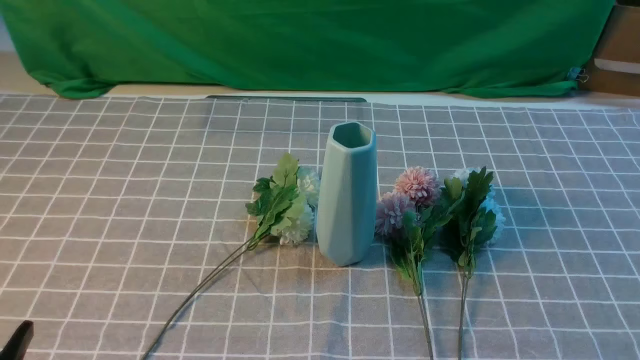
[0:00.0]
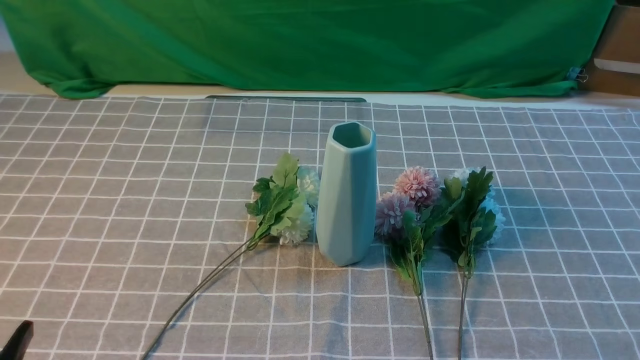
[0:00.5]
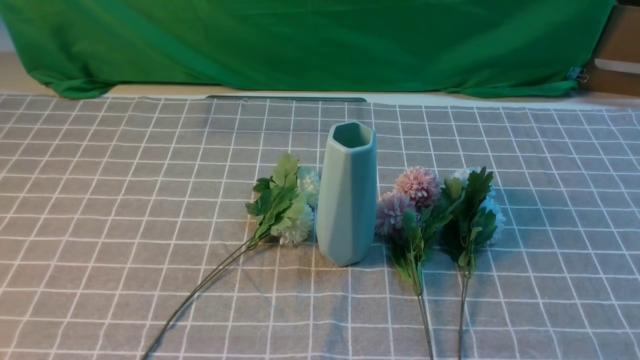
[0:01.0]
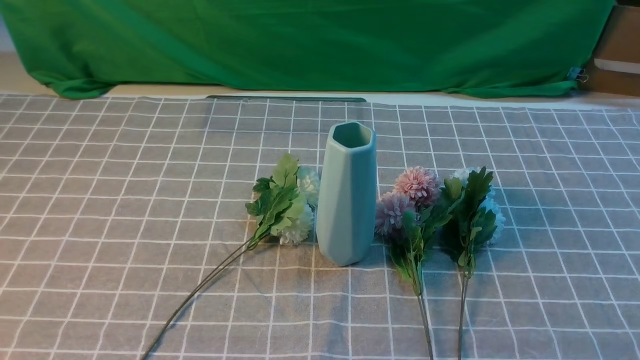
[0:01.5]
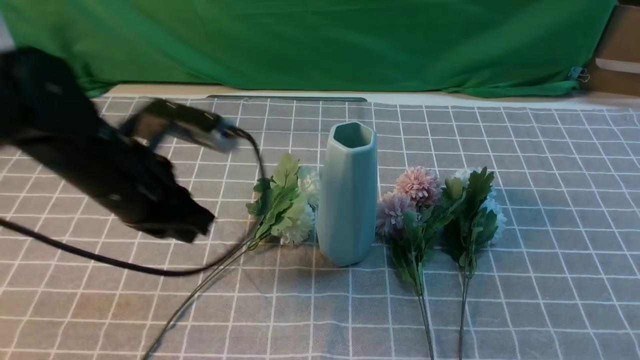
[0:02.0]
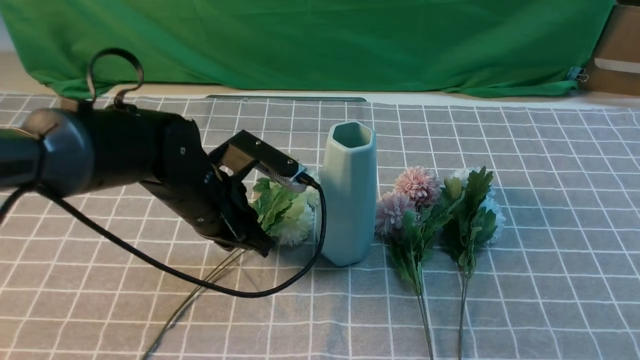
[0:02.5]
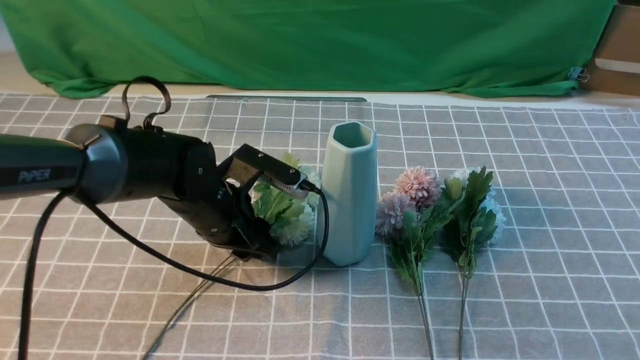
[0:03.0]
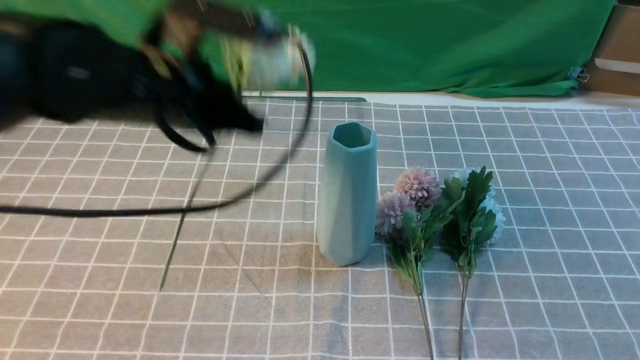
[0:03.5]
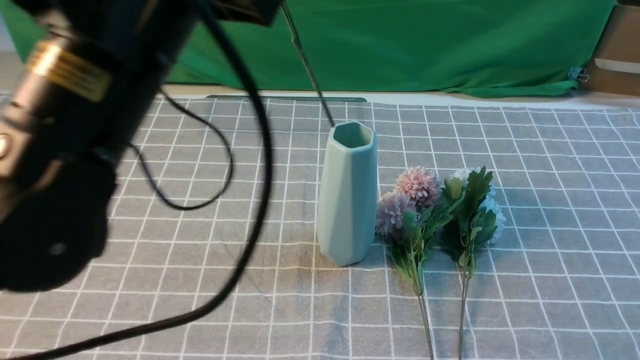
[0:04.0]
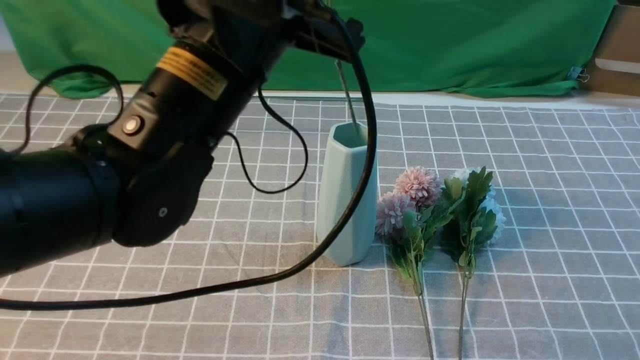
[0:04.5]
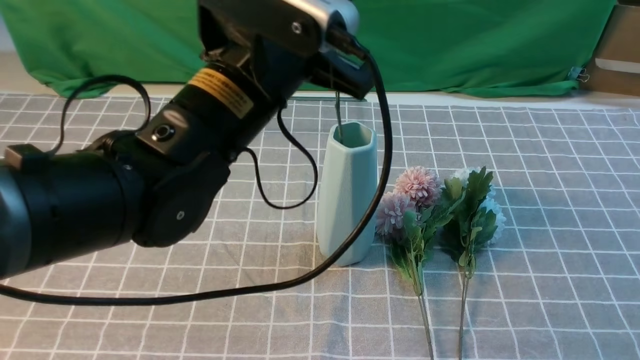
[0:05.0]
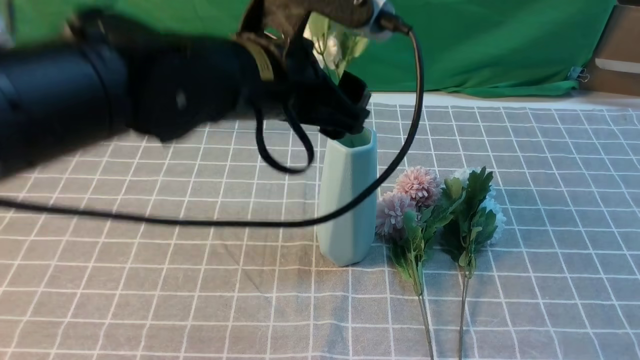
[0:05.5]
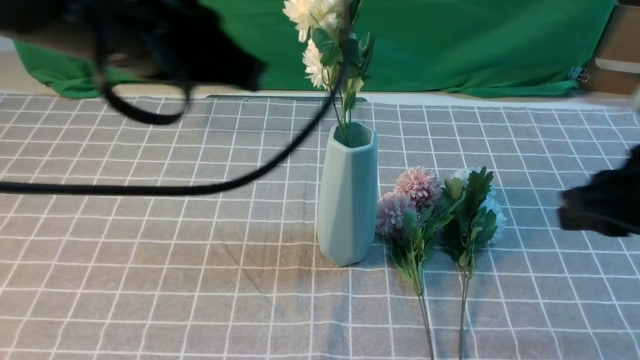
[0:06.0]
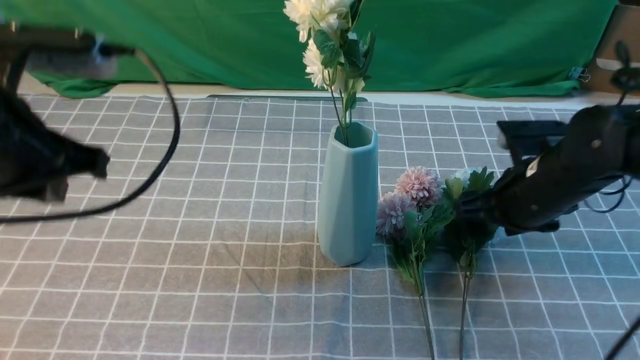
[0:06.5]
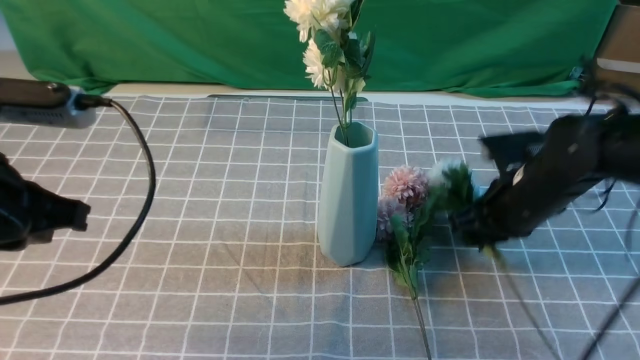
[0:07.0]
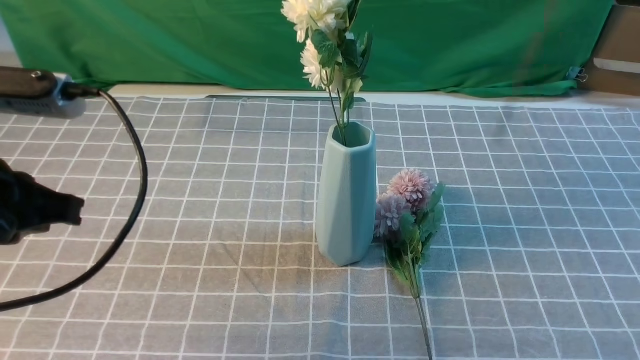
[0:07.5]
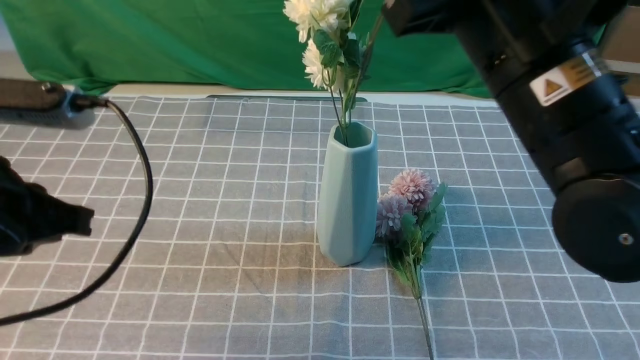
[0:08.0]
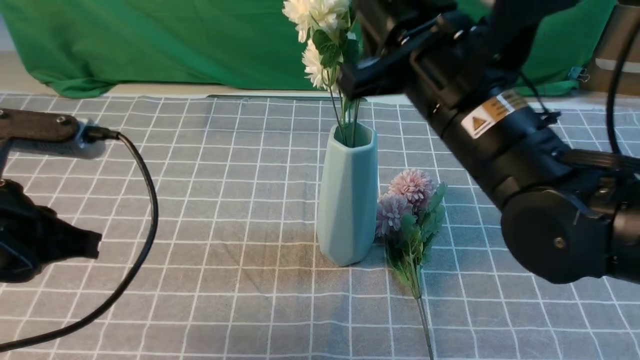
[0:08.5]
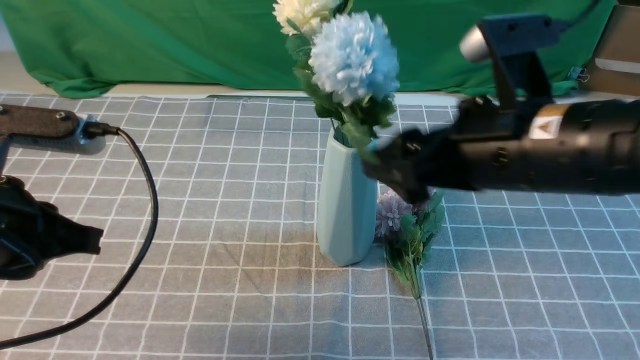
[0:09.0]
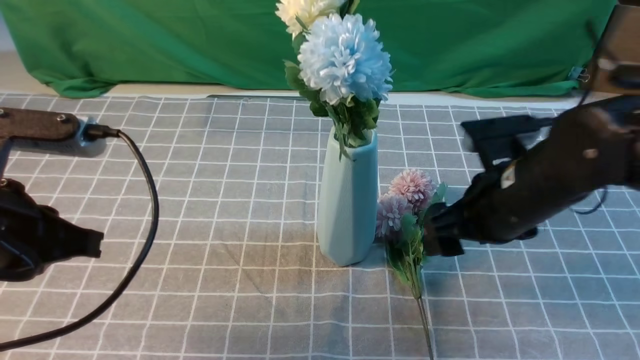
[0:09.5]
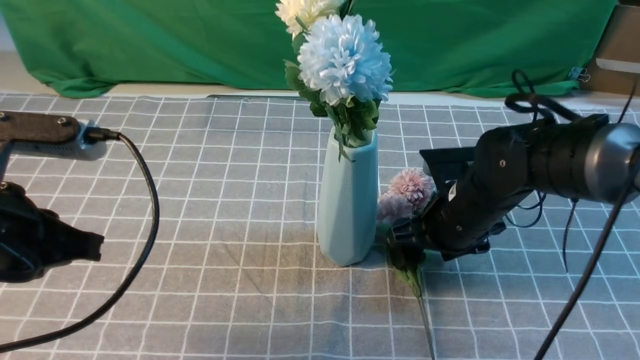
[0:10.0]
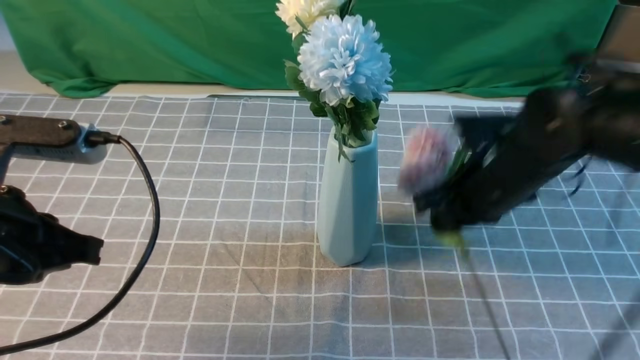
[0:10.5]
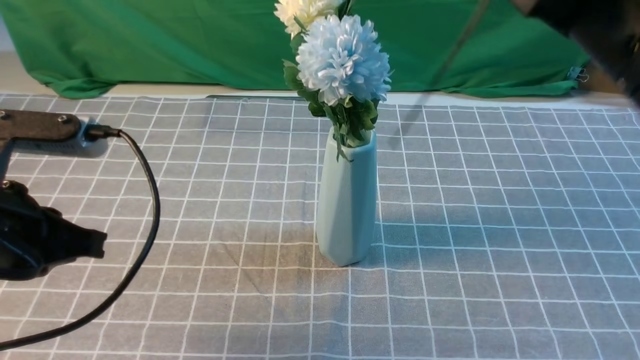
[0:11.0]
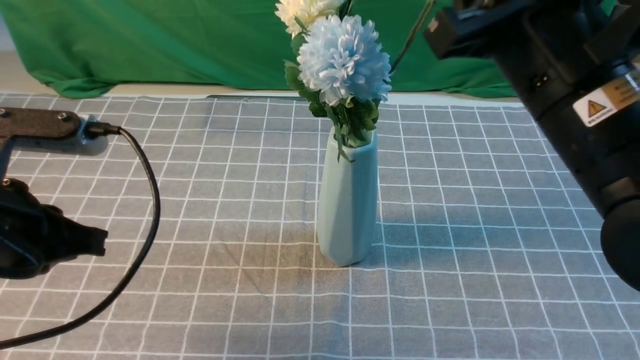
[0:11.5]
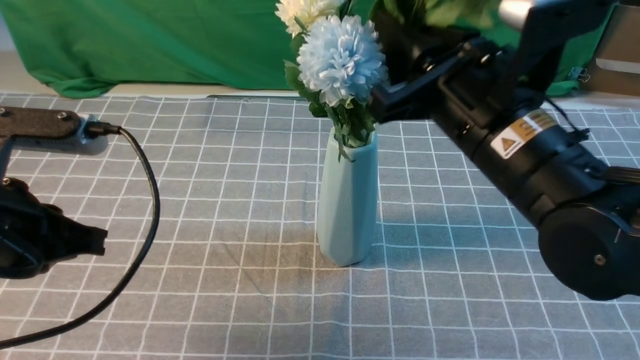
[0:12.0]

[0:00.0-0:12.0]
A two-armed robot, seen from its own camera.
Task of the whole recording: insert the flowers into the vase on the table with the grey tablecloth.
Step, 0:00.0 to 0:03.0: use the left arm to grab a bunch of fresh flowers.
Step, 0:03.5 to 0:05.5: use the left arm to insert the flowers into the vase.
Step, 0:06.0 to 0:06.5: use the right arm to grab a bunch of fresh flowers.
Step, 0:07.5 to 0:08.5: use the right arm to insert the flowers into the vase.
Step, 0:09.0 to 0:10.0: use the right arm to grab a bunch of fresh flowers.
0:00.0 to 0:02.0: The left gripper travels forward by roughly 25 cm, and closes its fingers.
0:02.0 to 0:04.0: The left gripper goes about 15 cm upward, backward and to the right, and opens, then closes once more; the right gripper is displaced upward and forward by approximately 15 cm.
0:04.0 to 0:06.0: The right gripper travels forward by approximately 15 cm; the left gripper goes downward and returns, approximately 5 cm each way, and opens, then closes once more.
0:06.0 to 0:08.0: The right gripper moves up and down over approximately 25 cm, changing direction 2 times, and opens, then closes once more. The left gripper goes roughly 15 cm to the left, downward and backward.
0:08.0 to 0:10.0: The right gripper goes some 25 cm downward and forward, and opens up.
0:10.0 to 0:12.0: The right gripper goes roughly 15 cm upward and backward, and closes.

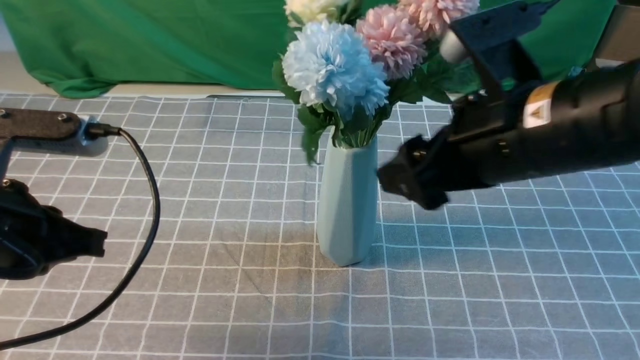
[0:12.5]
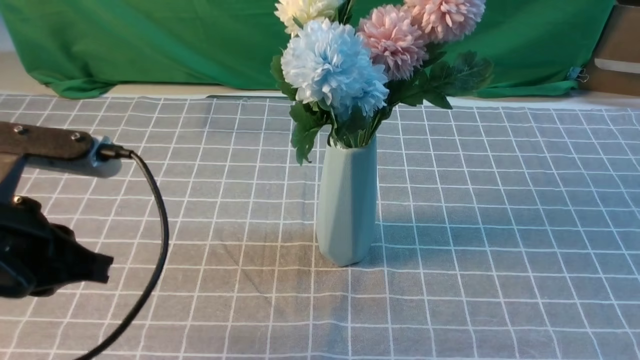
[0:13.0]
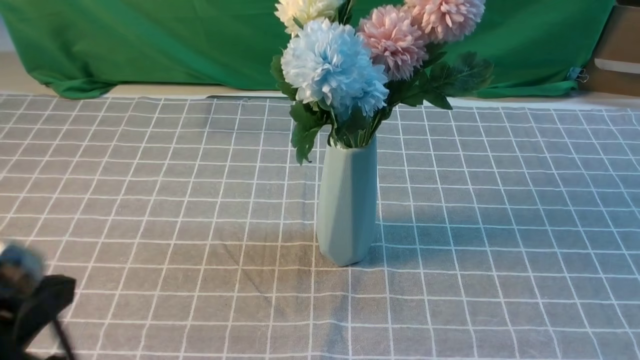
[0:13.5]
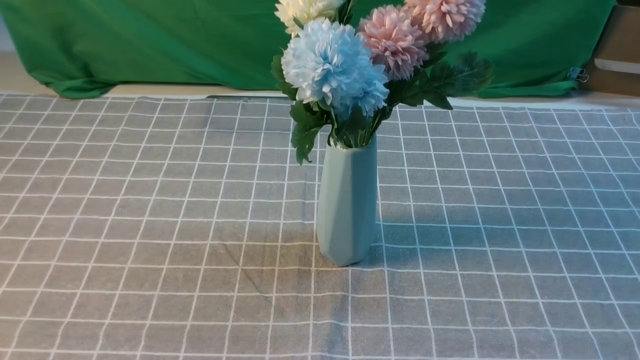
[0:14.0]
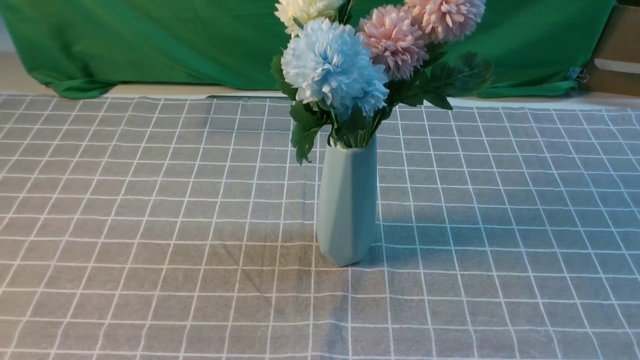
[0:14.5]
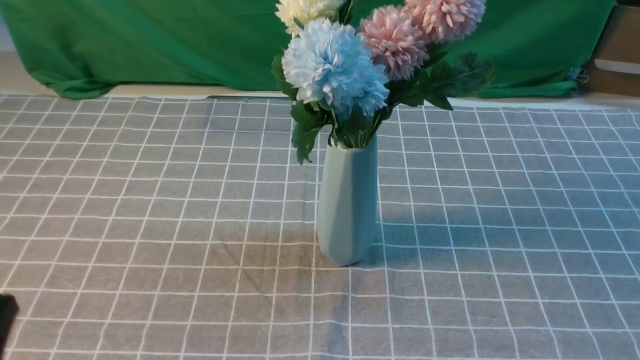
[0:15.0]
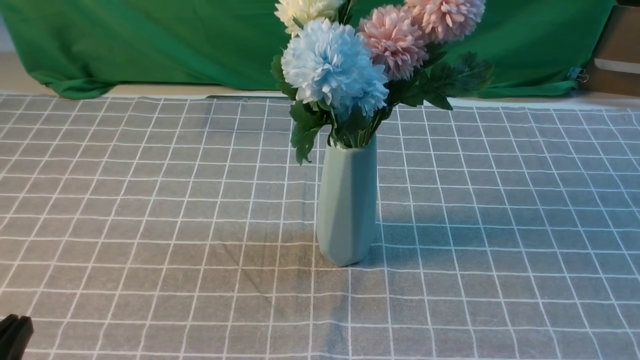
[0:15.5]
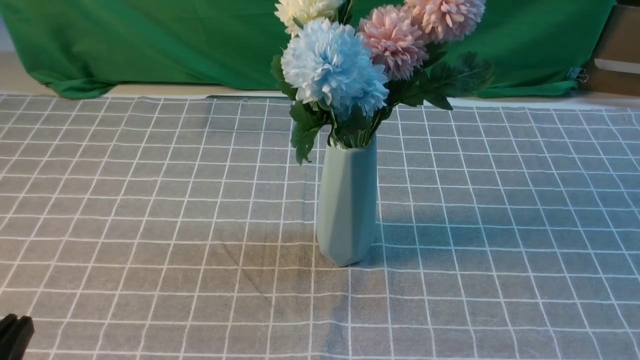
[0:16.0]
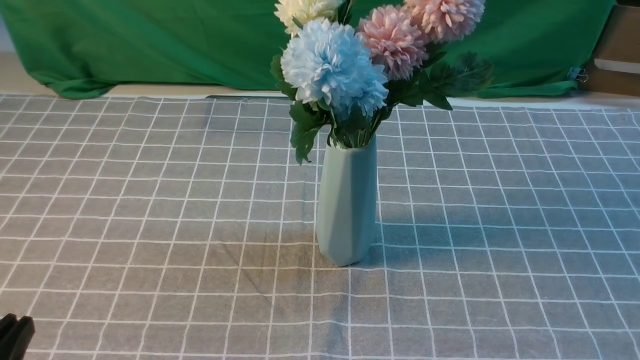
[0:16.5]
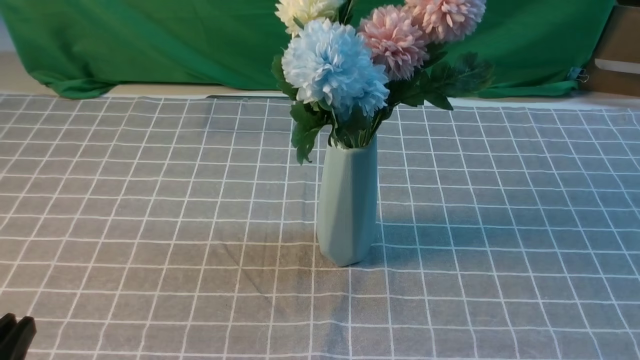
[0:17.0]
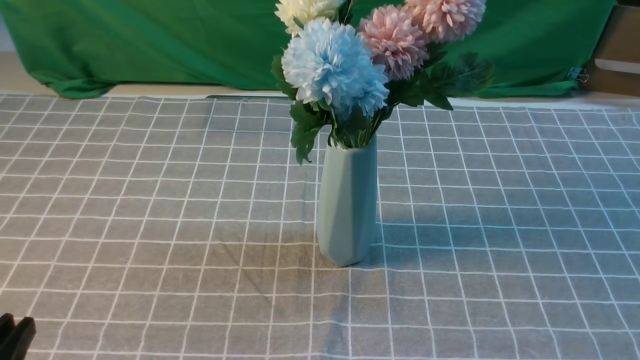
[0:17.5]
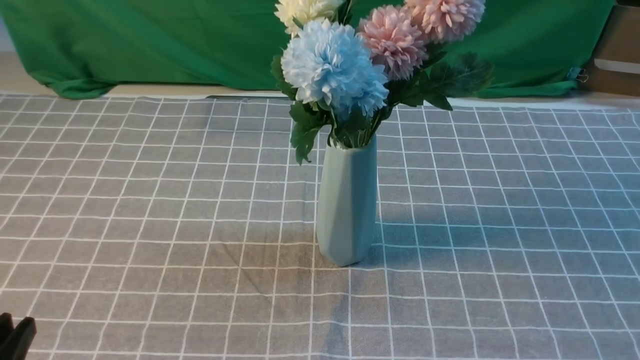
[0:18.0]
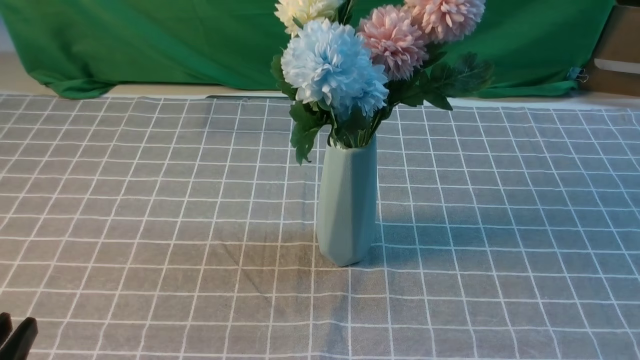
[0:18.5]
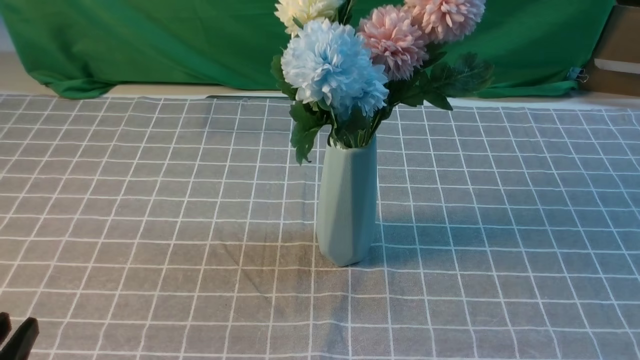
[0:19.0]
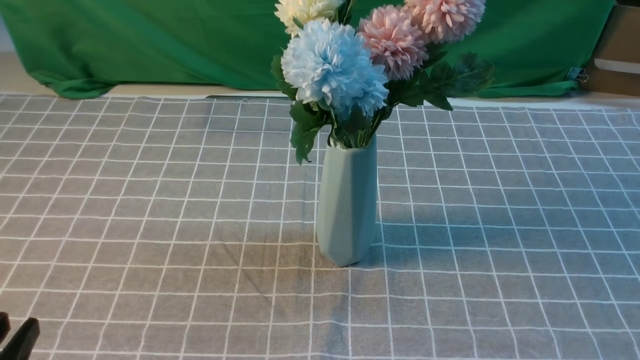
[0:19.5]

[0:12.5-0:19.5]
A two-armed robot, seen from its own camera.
Task of the whole recording: insert the flowers into the vase on the table with the grey tablecloth.
0:12.5 to 0:14.5: The left gripper is displaced backward by roughly 15 cm. The right gripper travels backward and to the right by about 25 cm, and closes up.
0:17.5 to 0:19.5: Both grippers stay about where they are.
